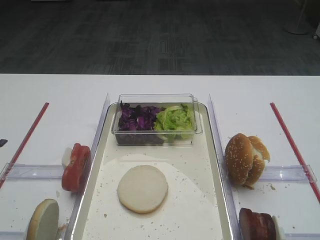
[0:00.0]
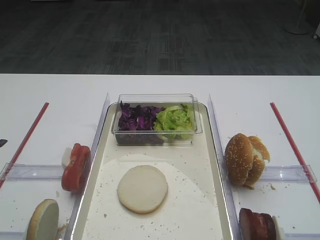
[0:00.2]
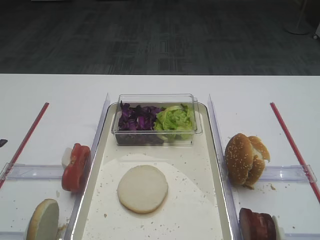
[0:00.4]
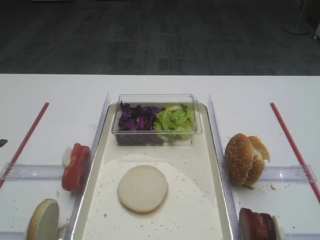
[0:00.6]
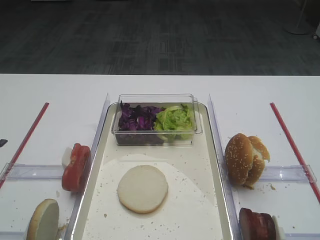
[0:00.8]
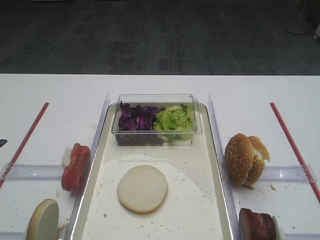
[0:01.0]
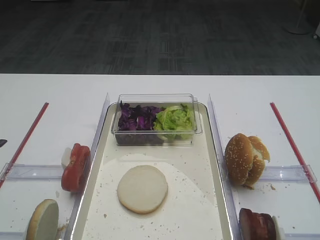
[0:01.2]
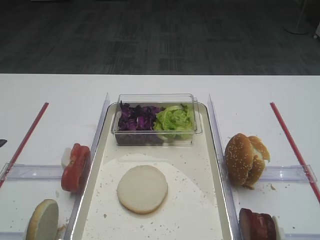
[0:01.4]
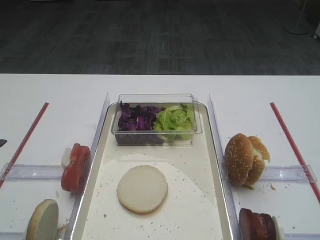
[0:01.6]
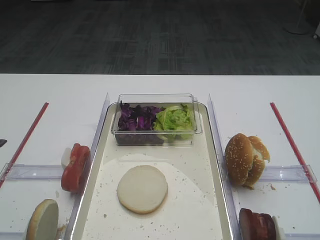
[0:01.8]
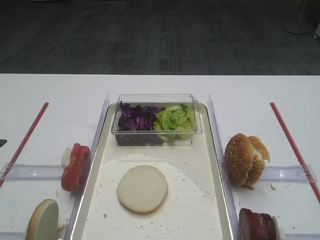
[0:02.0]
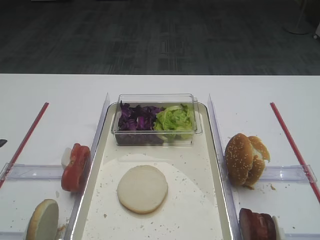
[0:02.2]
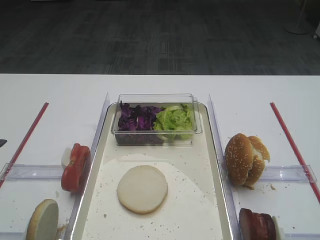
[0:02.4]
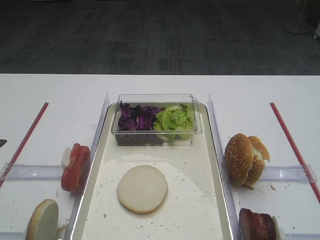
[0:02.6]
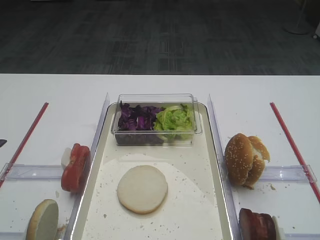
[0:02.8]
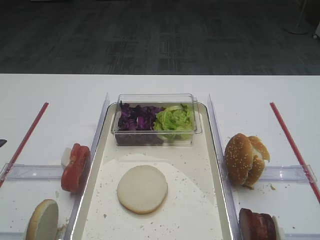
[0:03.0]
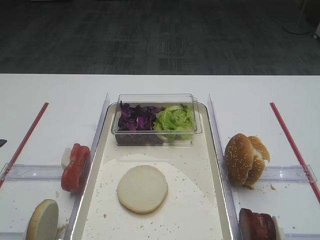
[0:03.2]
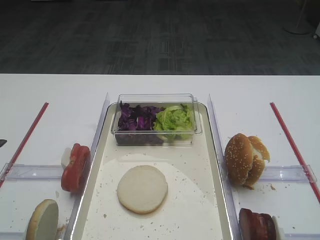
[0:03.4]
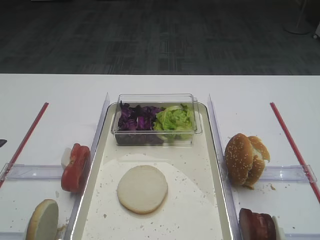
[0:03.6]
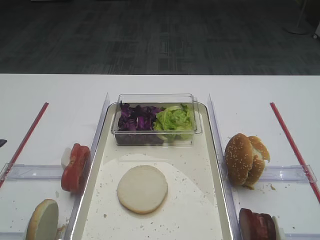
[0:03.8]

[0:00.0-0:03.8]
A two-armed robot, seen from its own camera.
0:00.0 to 0:01.2: The two grippers keep their place.
0:01.2 to 0:03.8: Neither gripper changes place.

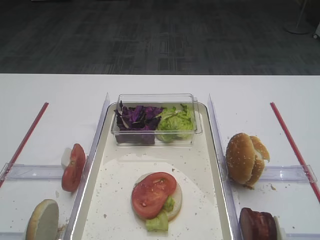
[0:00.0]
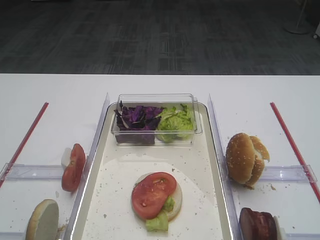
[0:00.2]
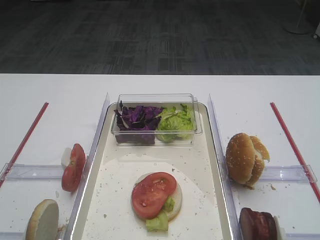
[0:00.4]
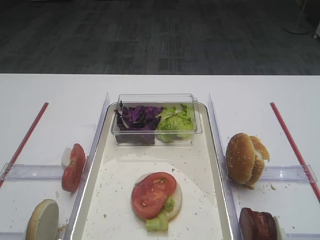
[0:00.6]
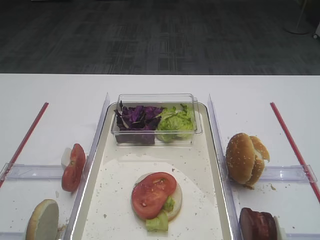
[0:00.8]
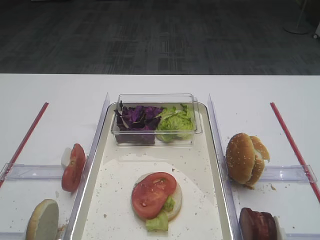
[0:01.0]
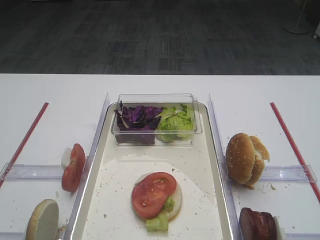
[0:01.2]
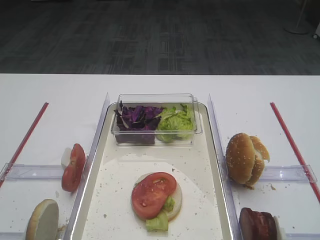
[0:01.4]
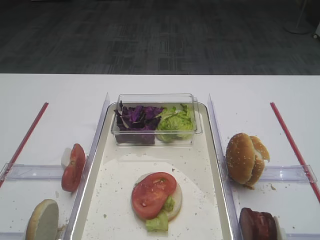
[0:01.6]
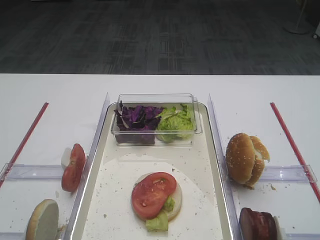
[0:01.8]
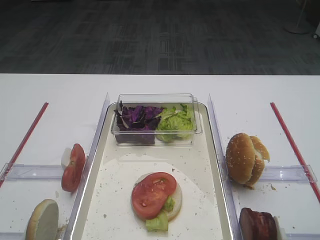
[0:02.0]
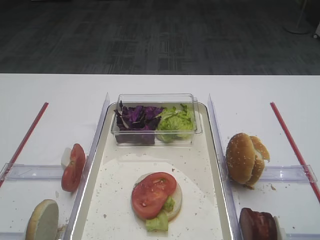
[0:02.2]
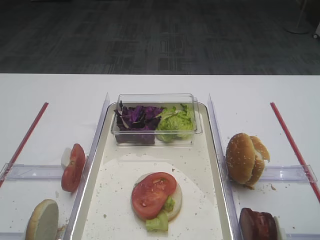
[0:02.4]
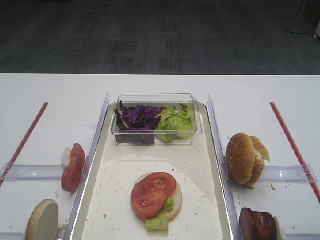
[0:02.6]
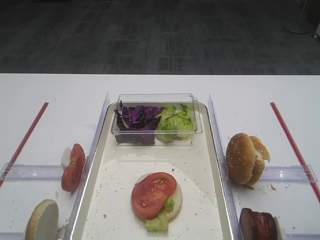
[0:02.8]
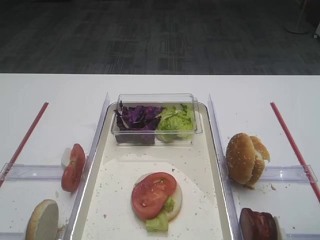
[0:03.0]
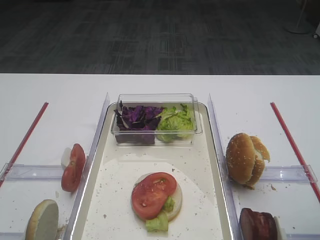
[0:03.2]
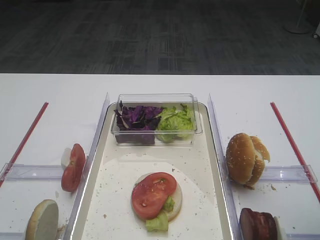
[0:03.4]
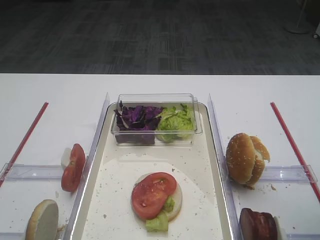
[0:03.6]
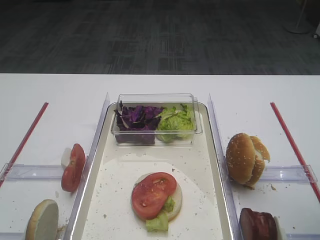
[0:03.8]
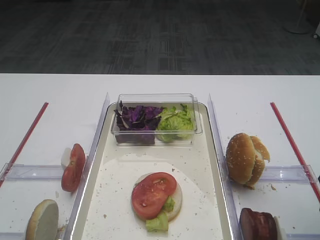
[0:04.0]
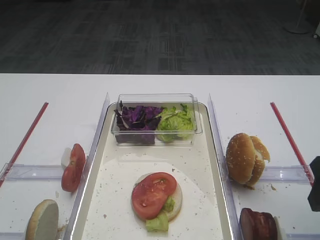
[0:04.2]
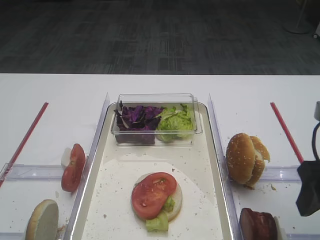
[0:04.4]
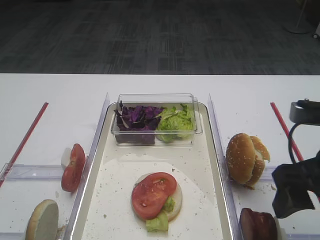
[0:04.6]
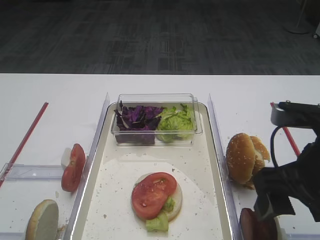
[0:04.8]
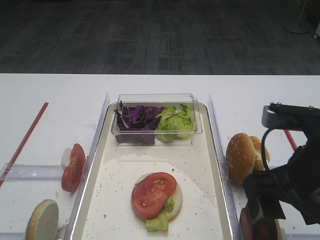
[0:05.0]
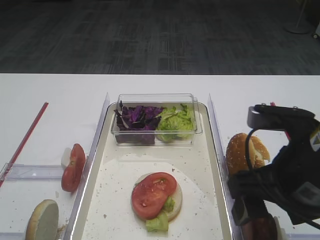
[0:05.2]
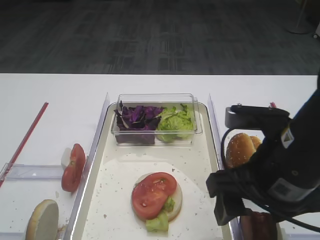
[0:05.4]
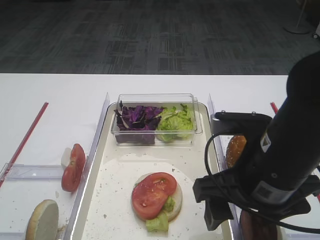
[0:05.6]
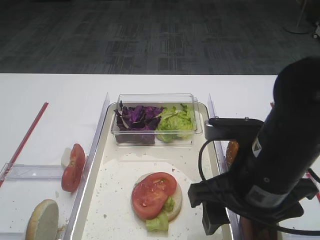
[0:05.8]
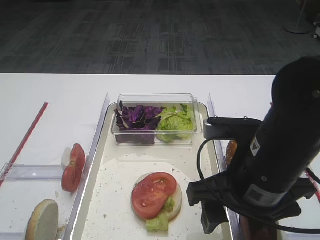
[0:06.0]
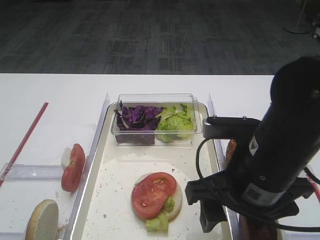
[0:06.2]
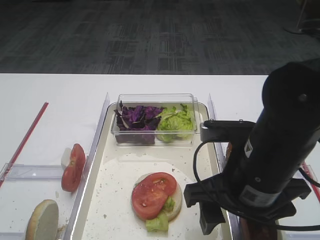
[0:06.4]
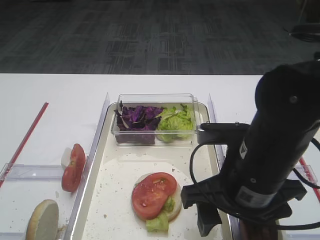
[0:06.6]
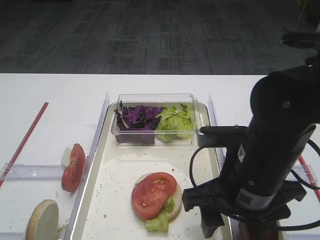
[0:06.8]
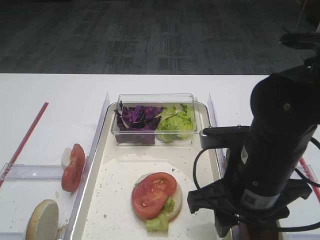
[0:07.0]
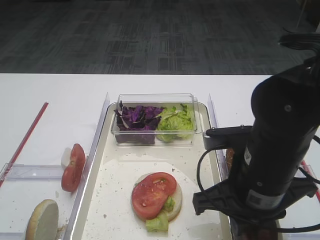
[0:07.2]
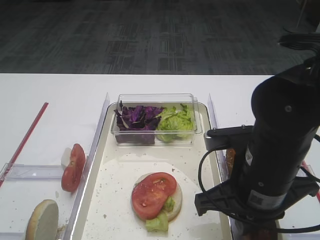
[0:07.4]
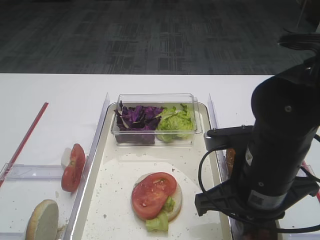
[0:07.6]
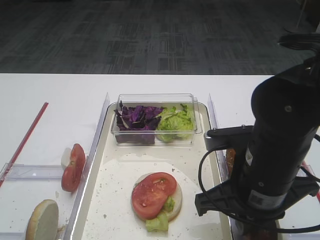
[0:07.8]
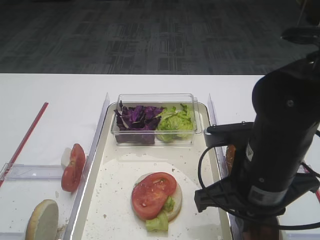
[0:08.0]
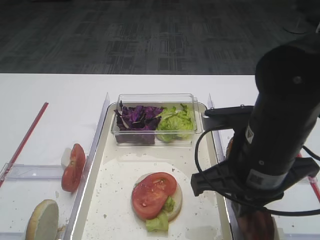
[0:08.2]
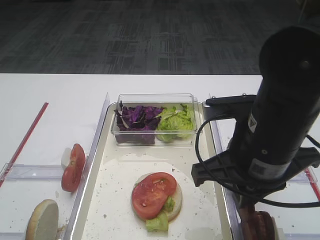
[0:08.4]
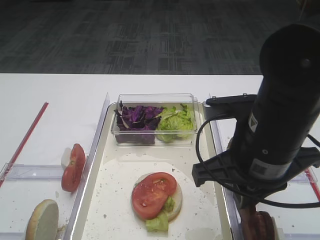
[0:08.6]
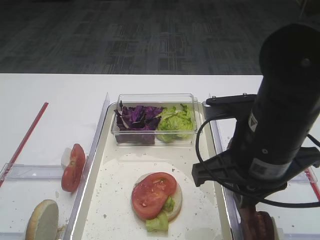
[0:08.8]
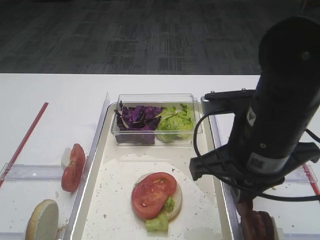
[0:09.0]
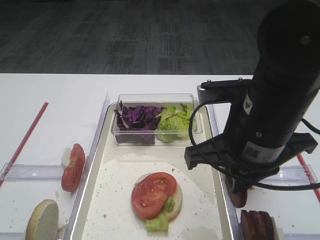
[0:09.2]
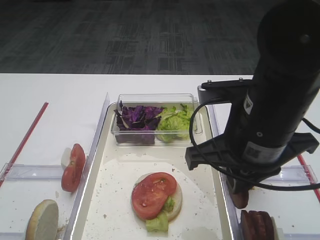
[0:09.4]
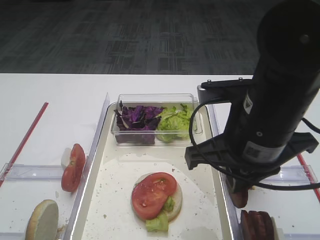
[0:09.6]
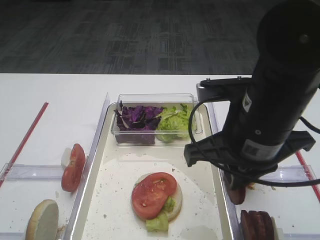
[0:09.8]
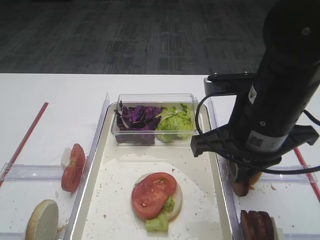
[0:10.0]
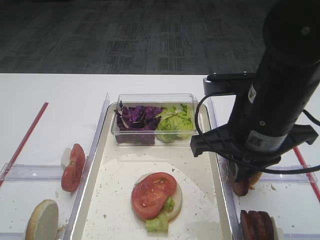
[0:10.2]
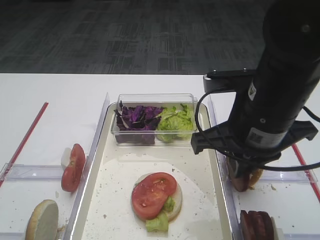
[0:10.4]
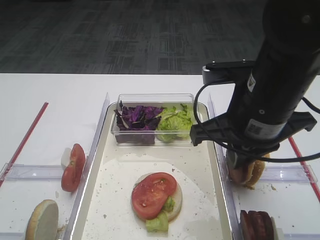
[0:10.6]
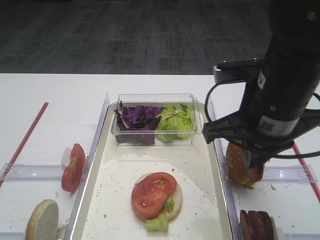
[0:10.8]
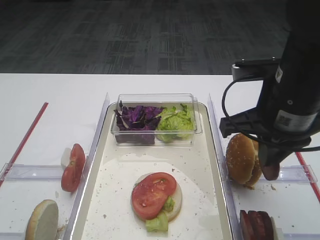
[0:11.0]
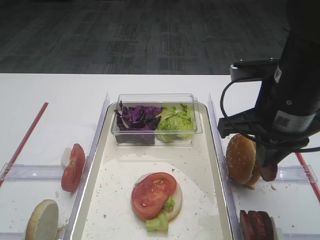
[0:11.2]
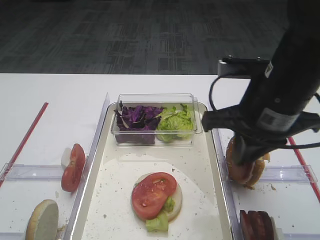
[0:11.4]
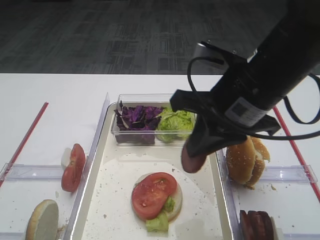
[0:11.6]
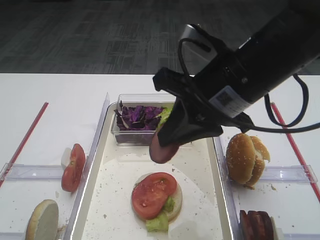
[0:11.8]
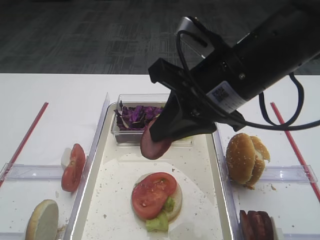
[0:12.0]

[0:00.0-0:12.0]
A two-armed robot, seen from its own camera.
Step, 0:00.0 to 0:09.6: Pick up the cutlet with the right gripper.
0:03.0 to 0:04.4: The right gripper moves about 5 cm.
0:04.4 to 0:06.0: The right gripper is displaced to the left by some 15 cm.
0:06.0 to 0:07.6: The right gripper closes up.
0:07.6 to 0:09.0: The right gripper is displaced upward by about 5 cm.
0:09.0 to 0:10.4: There are only small adjustments of the grippers.
0:10.4 to 0:12.0: The right gripper shifts by roughly 5 cm.

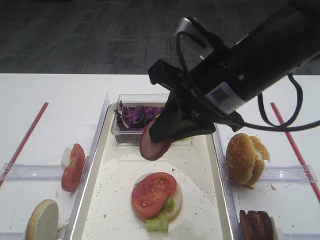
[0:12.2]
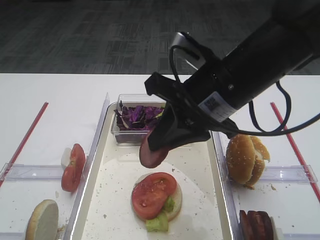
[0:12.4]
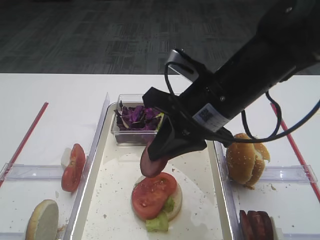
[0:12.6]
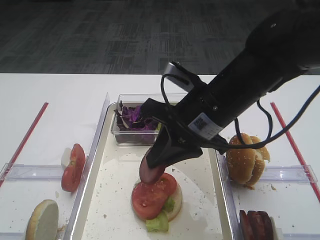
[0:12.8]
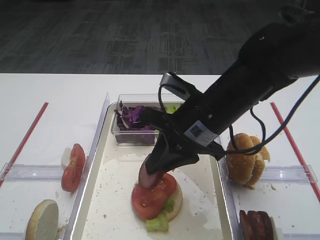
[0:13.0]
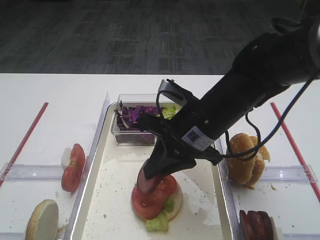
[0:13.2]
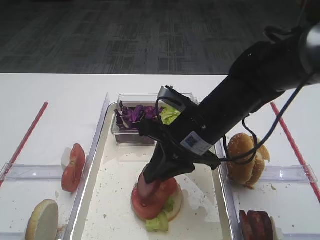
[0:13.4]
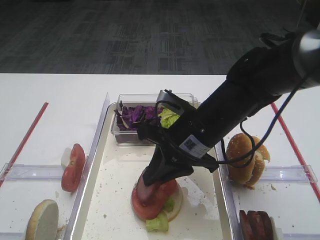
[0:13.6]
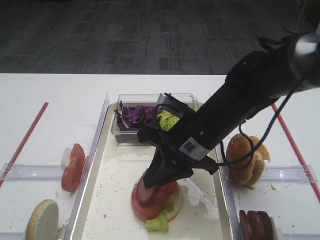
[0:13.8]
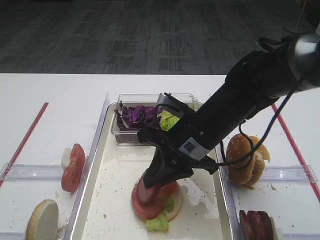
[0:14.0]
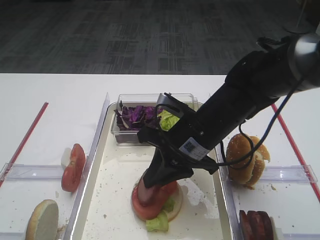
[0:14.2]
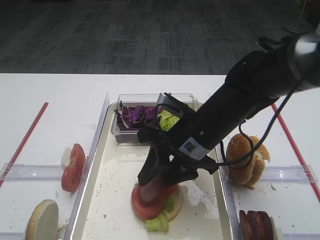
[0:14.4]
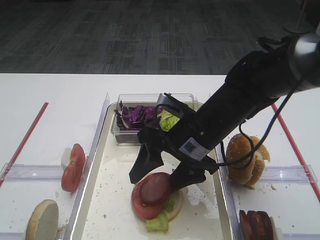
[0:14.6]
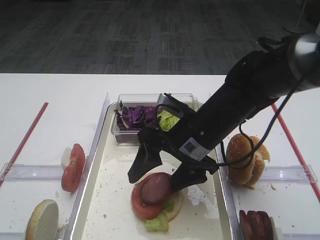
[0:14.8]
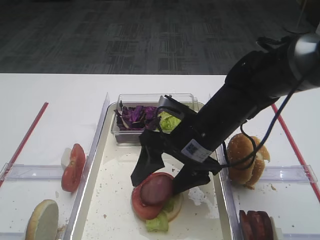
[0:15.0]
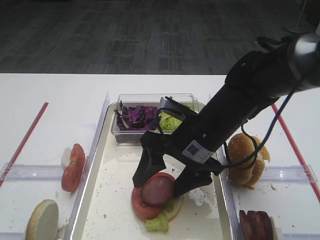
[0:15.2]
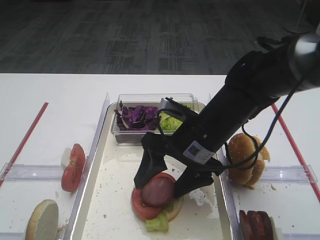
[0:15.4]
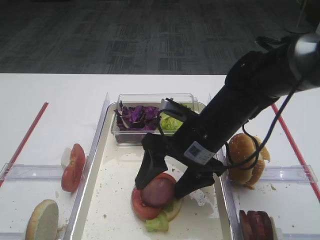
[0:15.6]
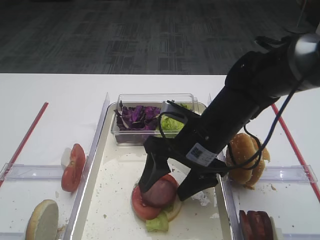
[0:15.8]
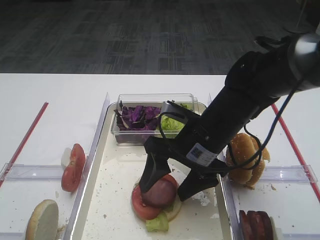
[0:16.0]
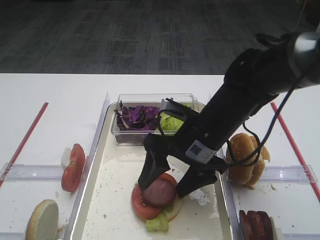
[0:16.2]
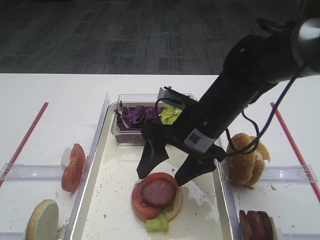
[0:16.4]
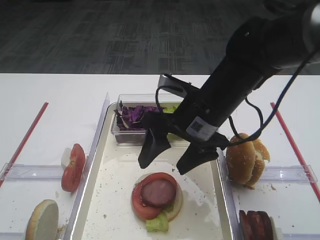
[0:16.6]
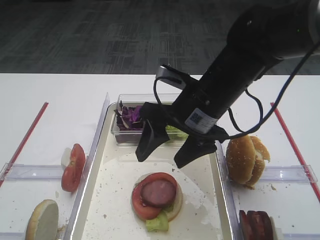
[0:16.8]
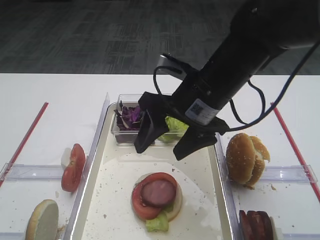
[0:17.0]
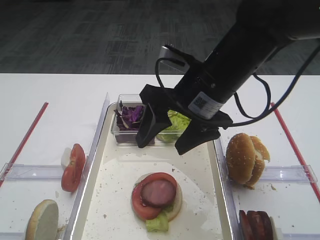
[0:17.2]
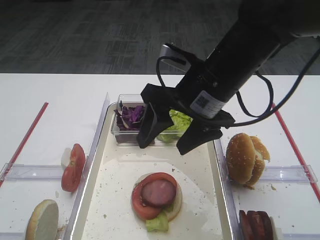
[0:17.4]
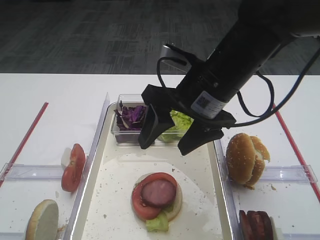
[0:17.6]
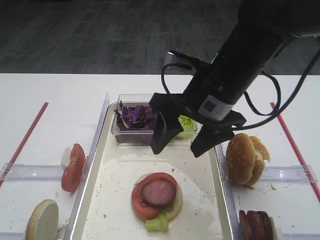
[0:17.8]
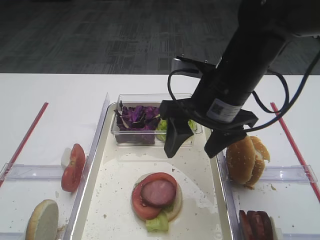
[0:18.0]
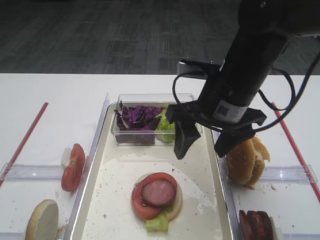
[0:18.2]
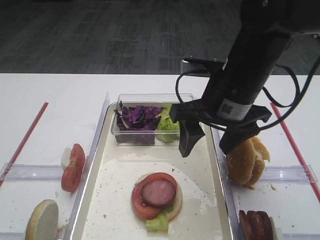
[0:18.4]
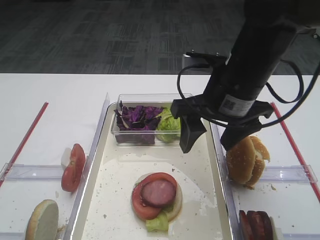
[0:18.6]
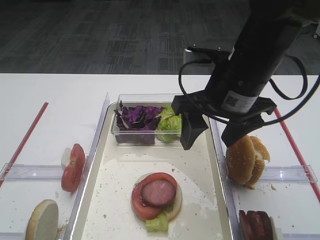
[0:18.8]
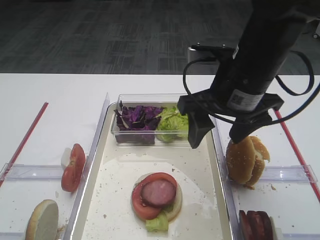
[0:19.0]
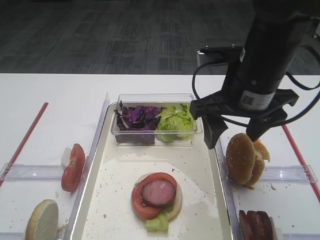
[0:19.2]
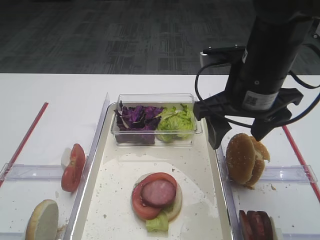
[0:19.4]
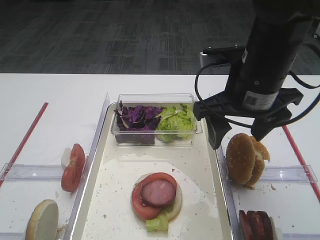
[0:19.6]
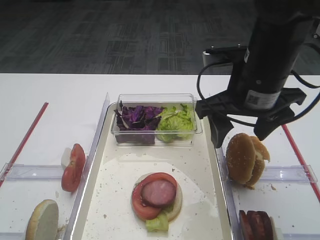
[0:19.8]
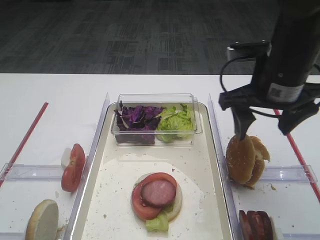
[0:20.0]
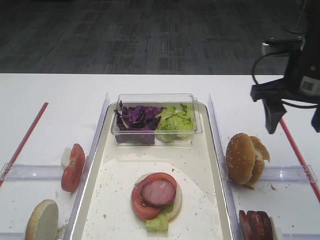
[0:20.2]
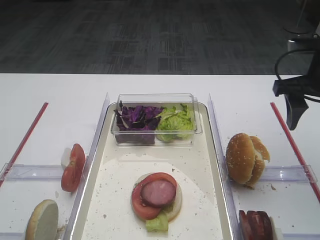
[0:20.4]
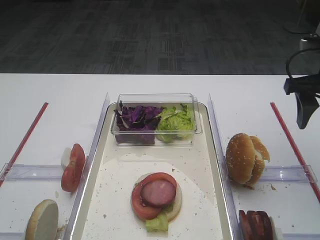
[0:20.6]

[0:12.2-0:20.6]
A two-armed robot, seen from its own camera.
Step, 0:12.2 to 0:17.0: Place the cutlet on the tomato slice with the right gripper.
0:12.2 to 0:13.6: The right gripper shifts approximately 10 cm downward.
0:13.6 to 0:15.0: The right gripper opens.
0:15.0 to 0:16.4: The grippers make only small movements.
0:16.4 to 0:17.8: The right gripper travels upward by some 5 cm.
0:19.2 to 0:20.6: The right gripper is displaced to the right by roughly 15 cm.
